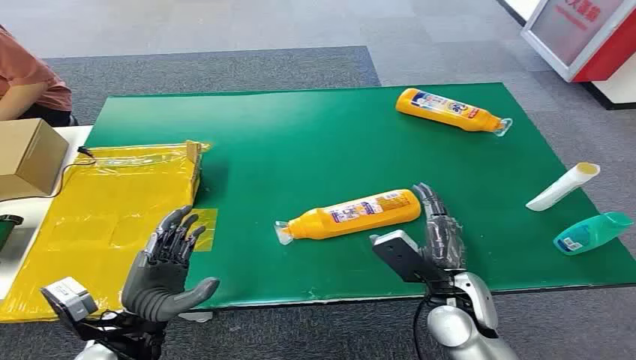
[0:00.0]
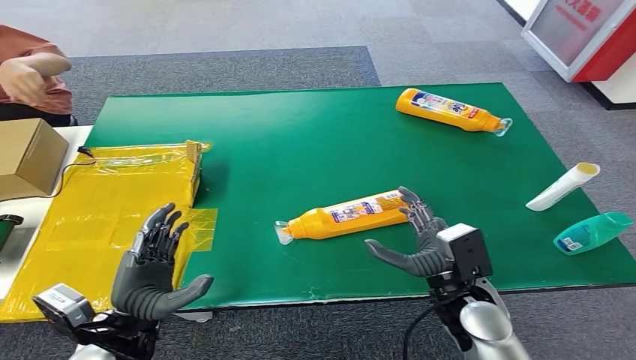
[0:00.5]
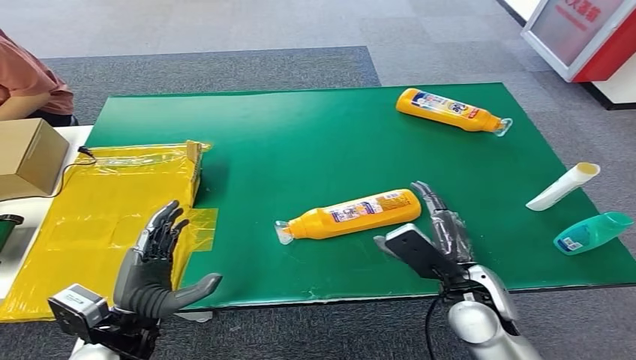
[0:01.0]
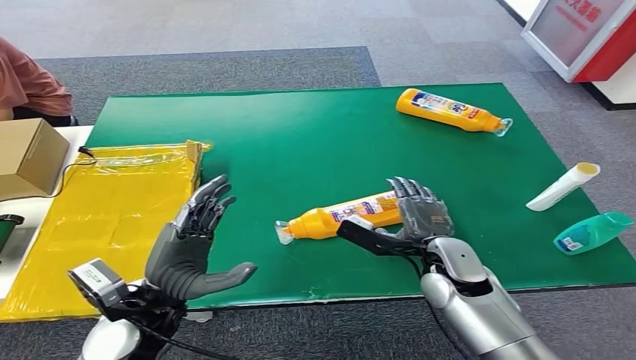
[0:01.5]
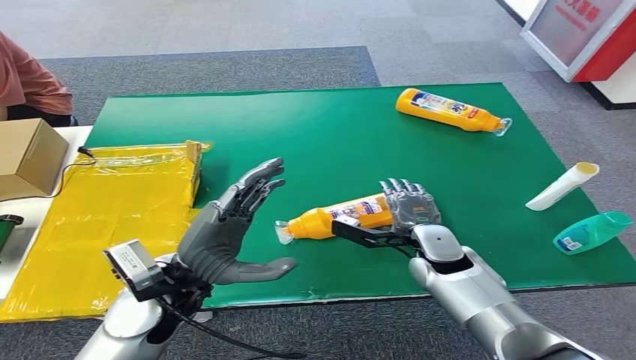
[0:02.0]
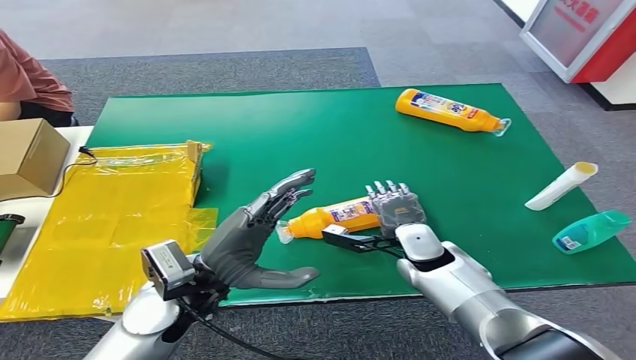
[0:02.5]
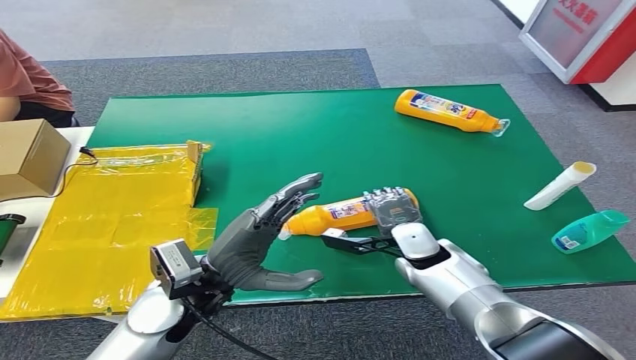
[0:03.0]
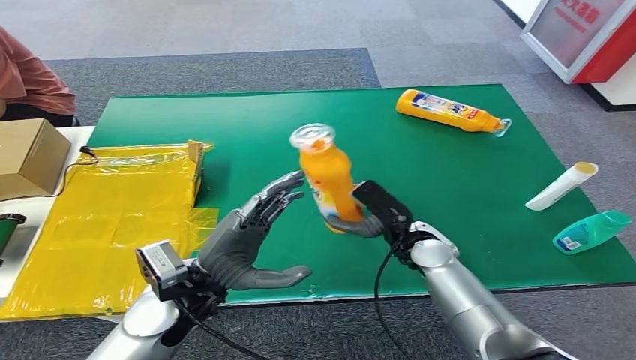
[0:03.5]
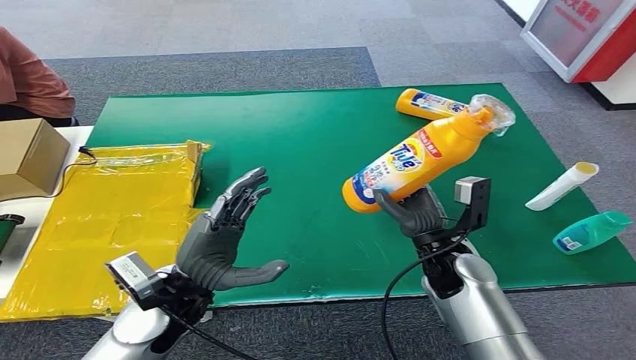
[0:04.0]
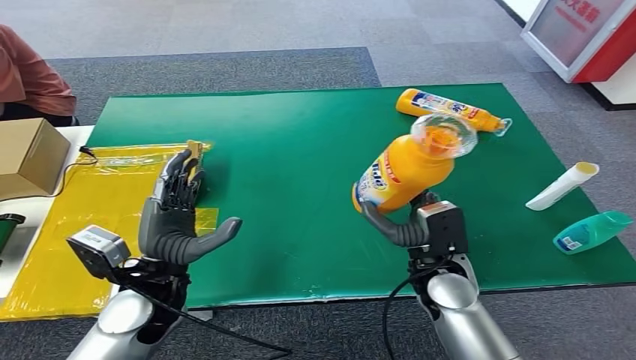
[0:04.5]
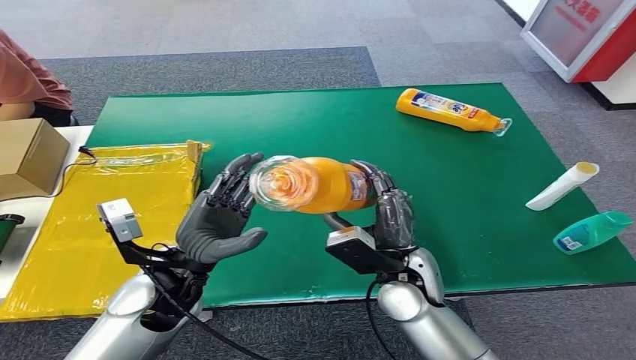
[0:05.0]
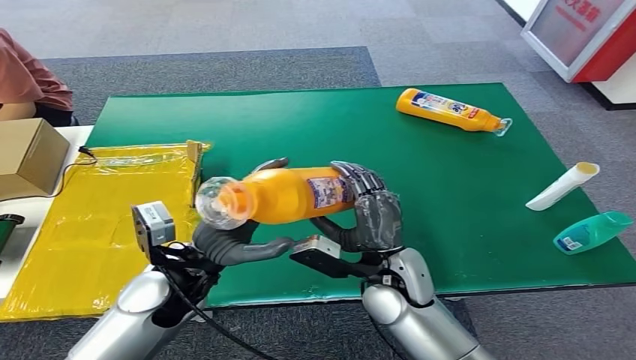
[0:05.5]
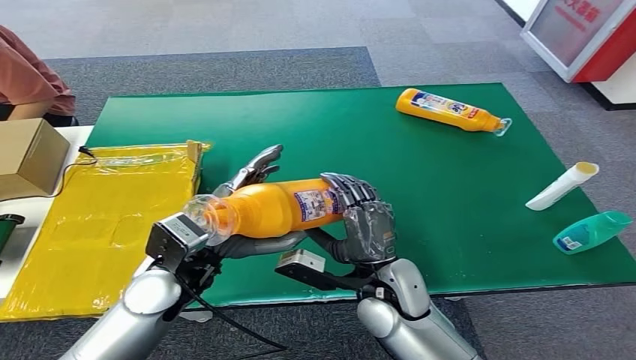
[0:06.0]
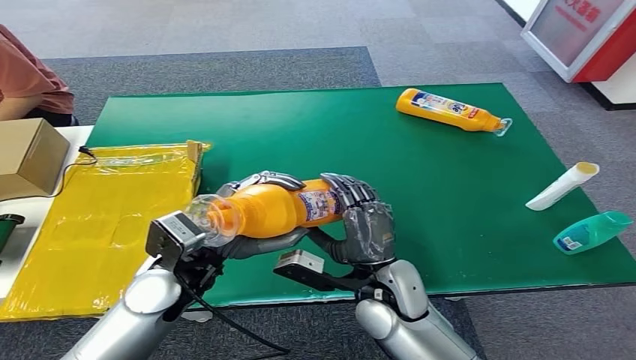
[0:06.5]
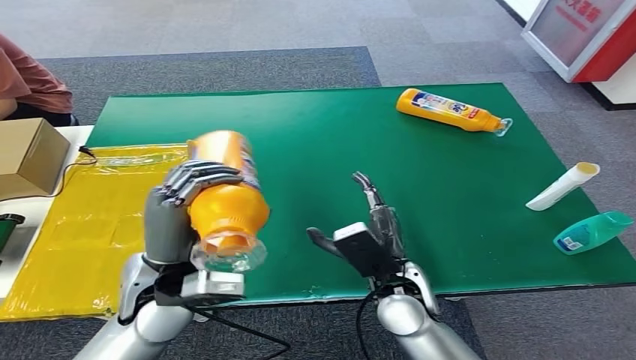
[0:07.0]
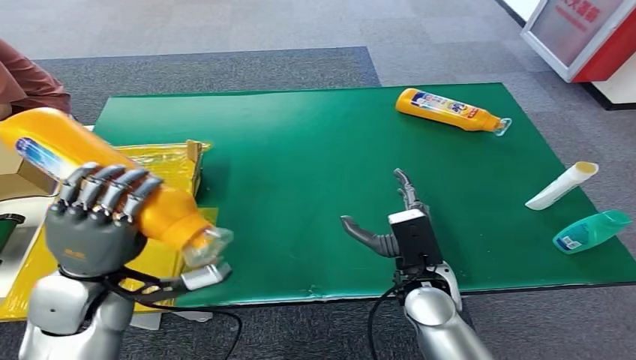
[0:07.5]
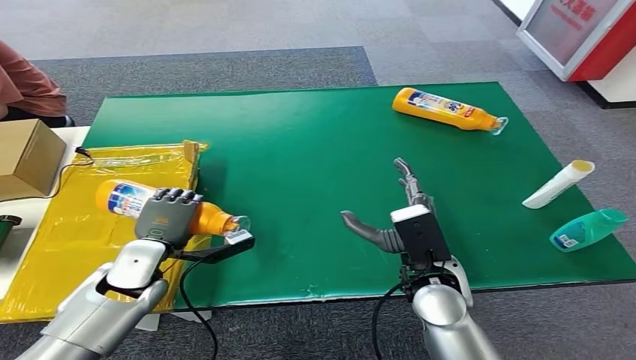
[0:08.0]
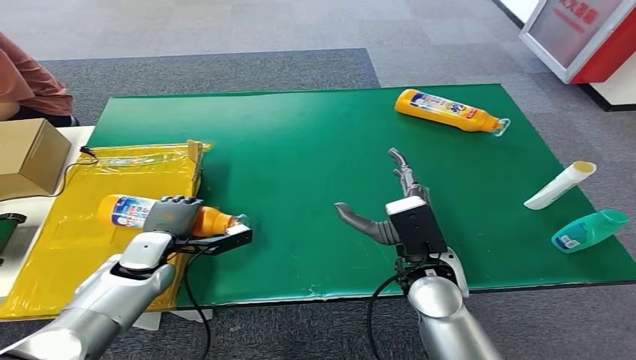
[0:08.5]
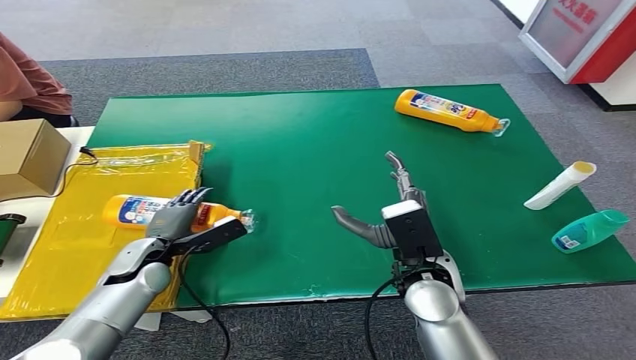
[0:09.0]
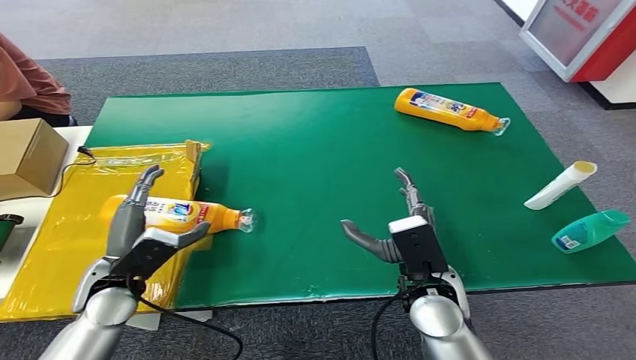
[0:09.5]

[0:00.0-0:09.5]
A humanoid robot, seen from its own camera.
Step, 0:00.0 to 0:04.0: Pick up the bottle from the table.
Step, 0:04.5 to 0:09.5: Turn the bottle to the front side.
0:07.5 to 0:09.5: The left hand is displaced downward by roughly 10 cm.

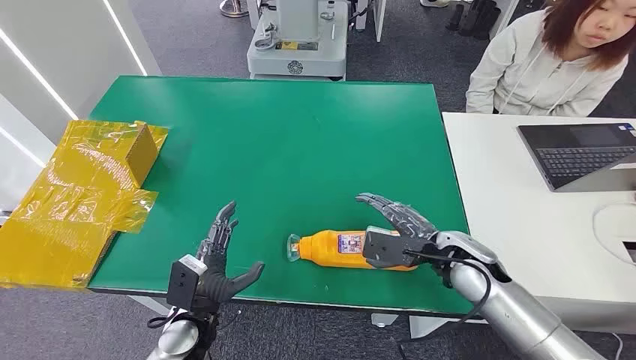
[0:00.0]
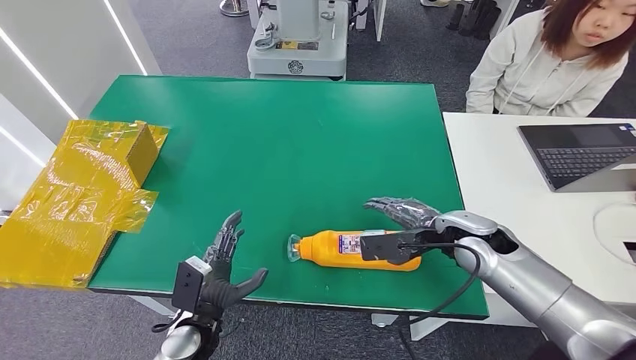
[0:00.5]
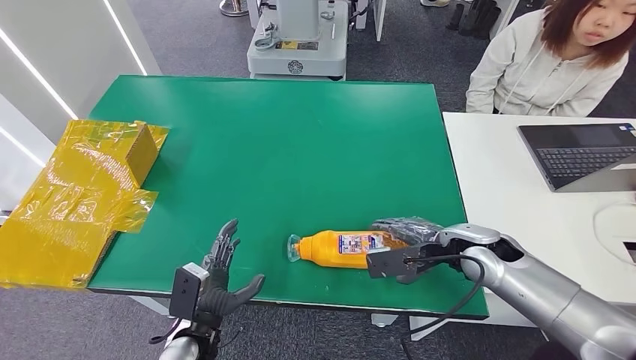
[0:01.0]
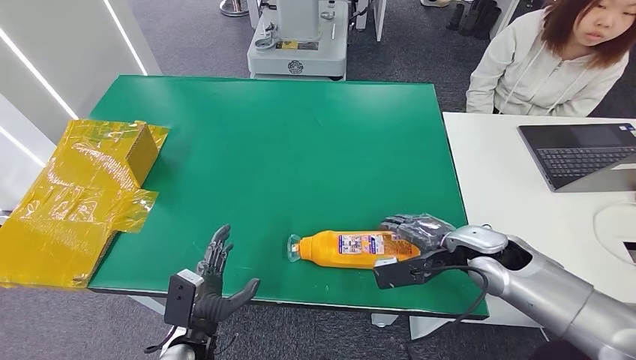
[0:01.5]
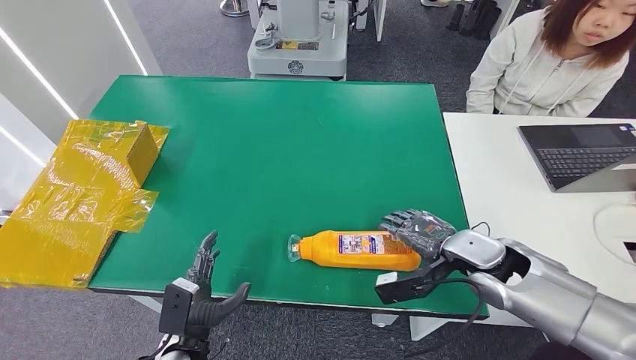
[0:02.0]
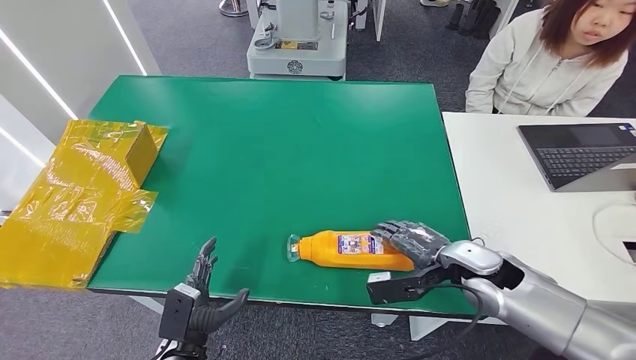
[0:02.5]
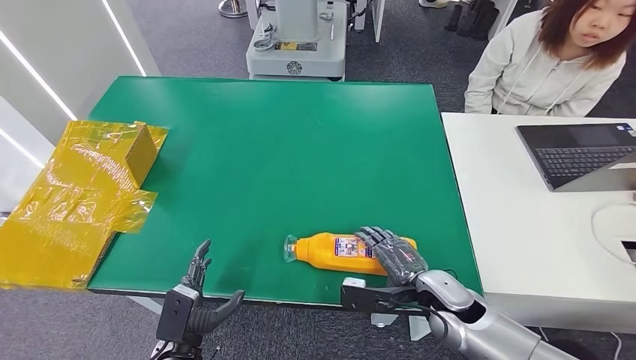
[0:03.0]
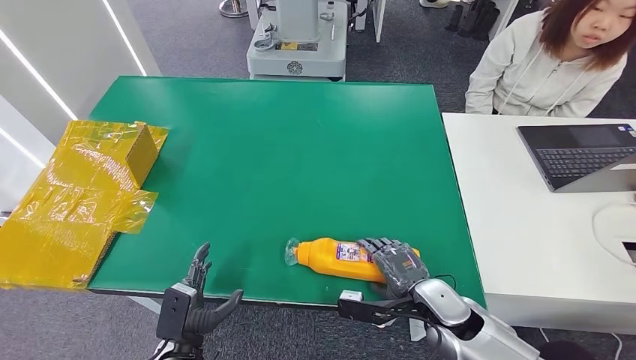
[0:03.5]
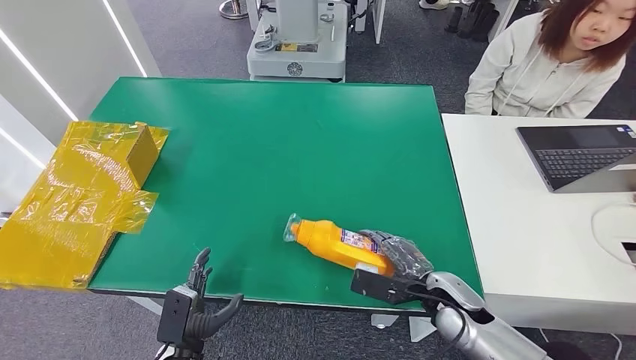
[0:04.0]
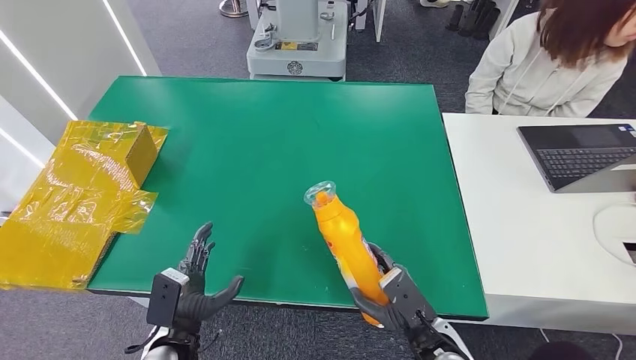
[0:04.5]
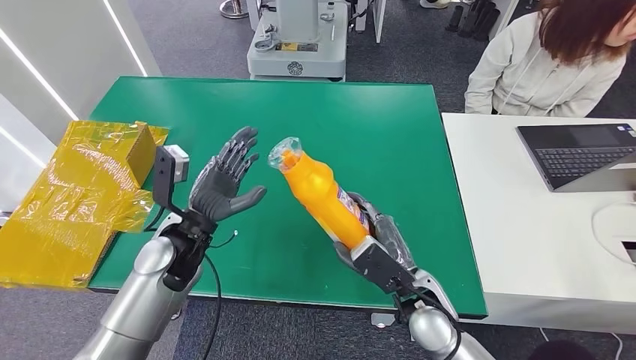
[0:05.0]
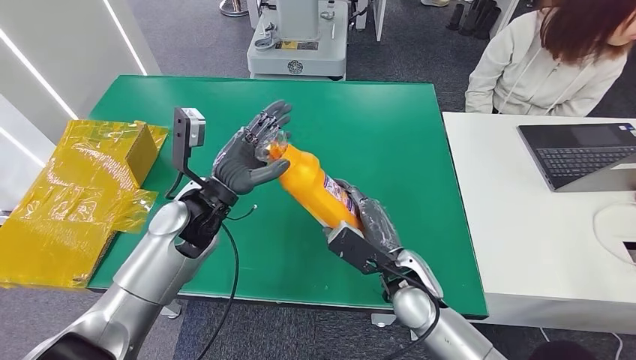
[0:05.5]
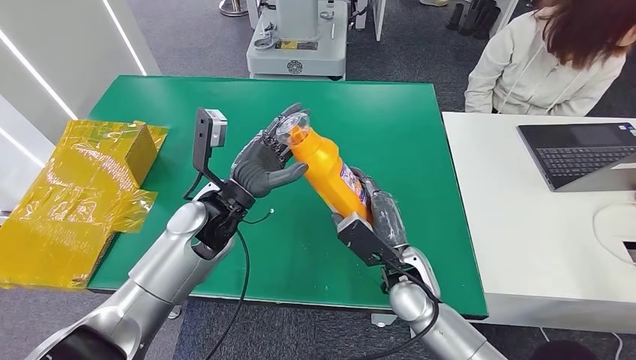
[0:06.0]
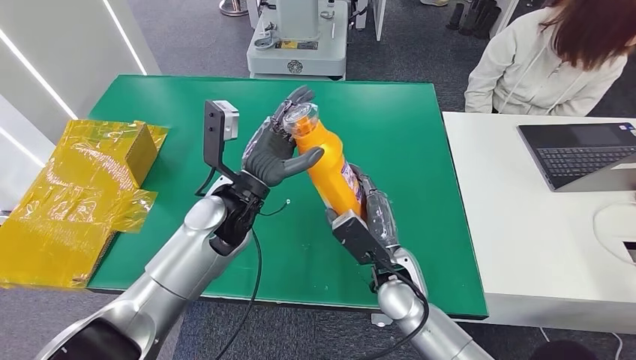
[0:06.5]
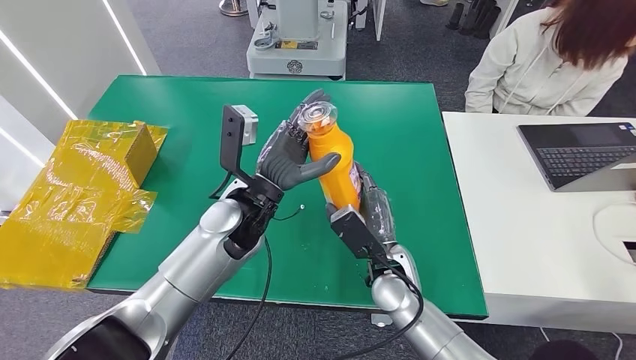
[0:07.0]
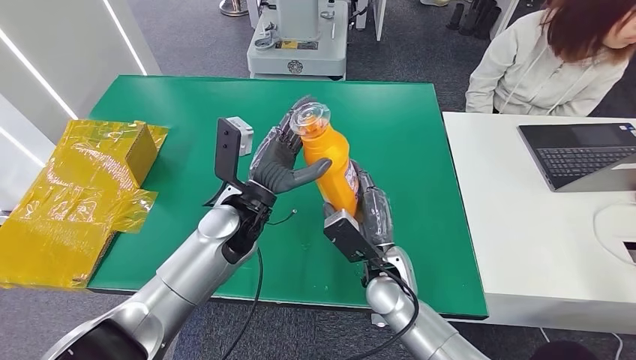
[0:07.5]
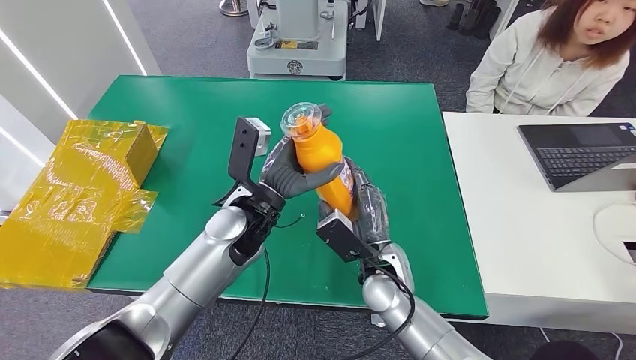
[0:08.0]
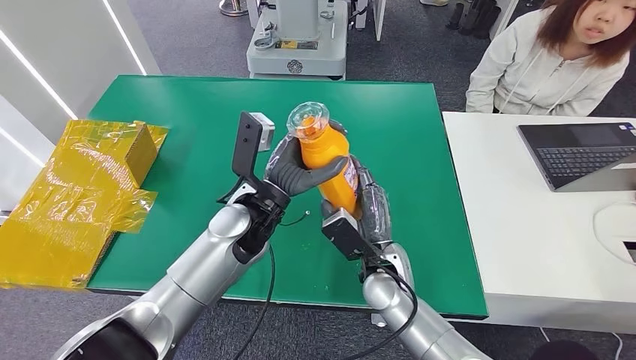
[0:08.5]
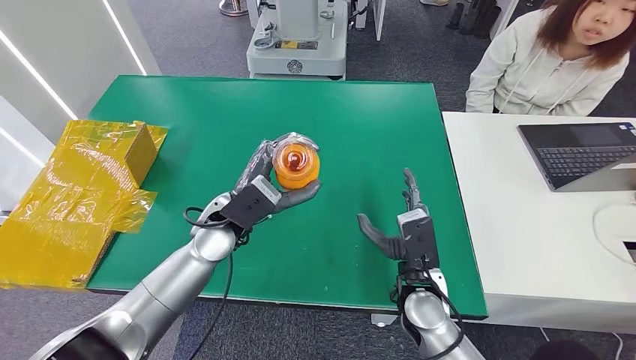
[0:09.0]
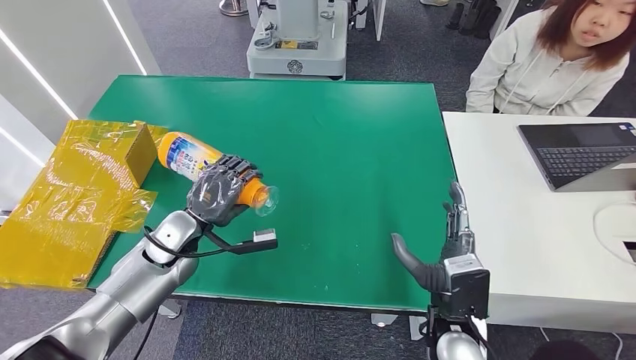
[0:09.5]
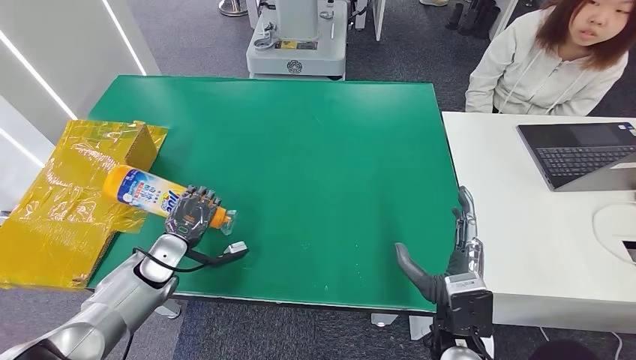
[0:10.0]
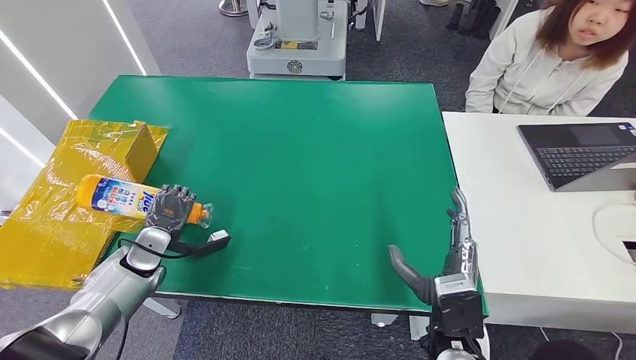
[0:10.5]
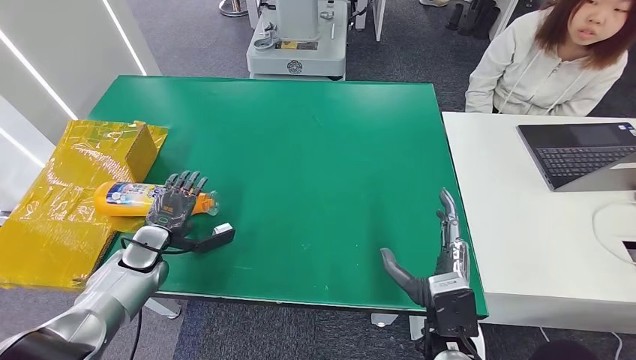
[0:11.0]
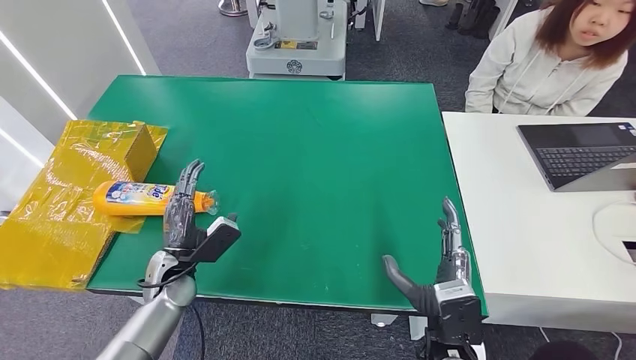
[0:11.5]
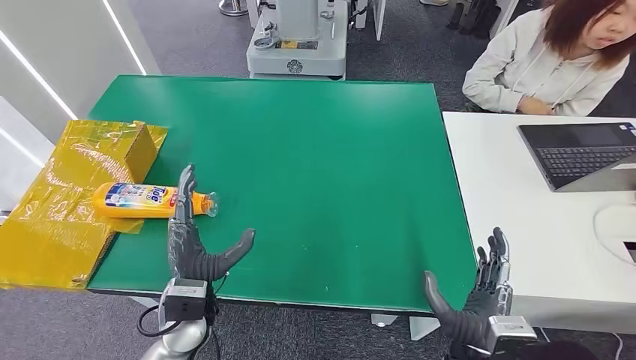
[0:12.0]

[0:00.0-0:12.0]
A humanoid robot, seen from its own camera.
Step, 0:00.0 to 0:04.5: Pick up the bottle from the table.
Step, 0:05.0 to 0:11.5: Turn the bottle to the front side.
0:02.0 to 0:04.0: The right hand shifts some 10 cm downward and backward.
0:06.0 to 0:08.0: The left hand heads to the right, covering roughly 5 cm.
0:08.0 to 0:10.0: The left hand heads to the left and downward, covering about 25 cm. The right hand travels backward and to the right by roughly 15 cm.
0:10.0 to 0:12.0: The right hand moves backward, some 5 cm; the left hand is displaced to the right, backward and upward by about 15 cm.
